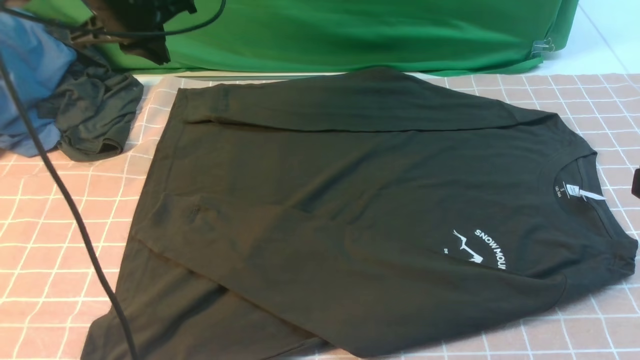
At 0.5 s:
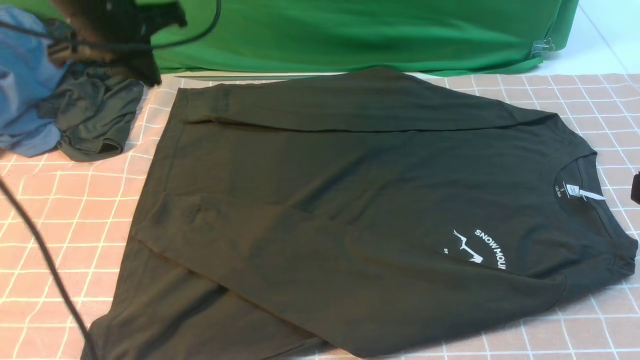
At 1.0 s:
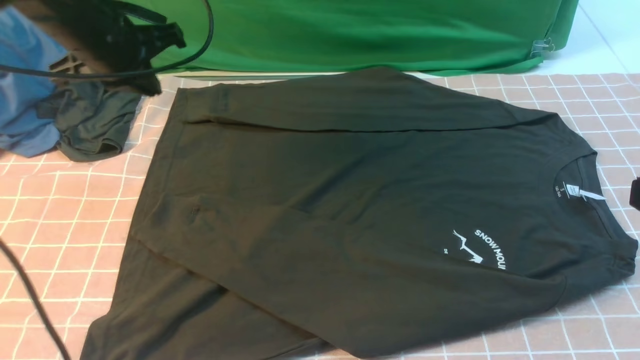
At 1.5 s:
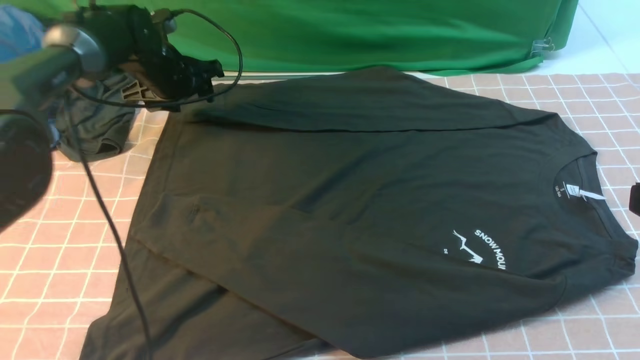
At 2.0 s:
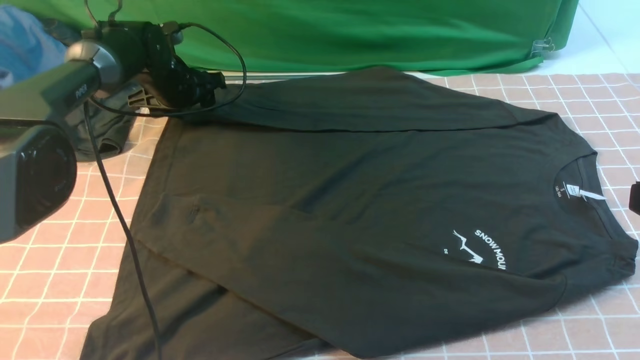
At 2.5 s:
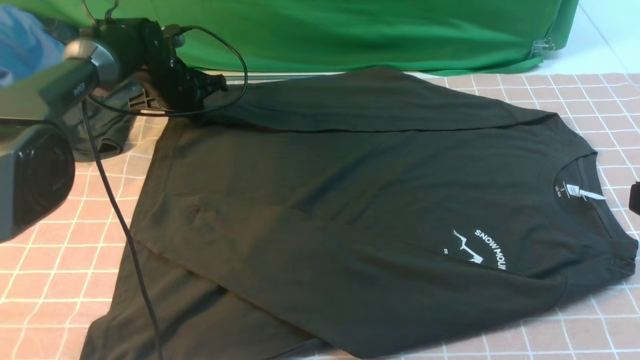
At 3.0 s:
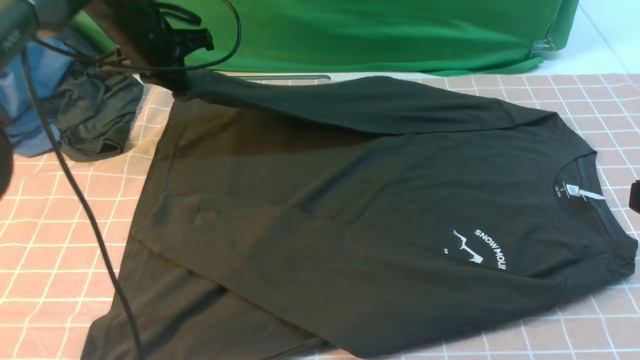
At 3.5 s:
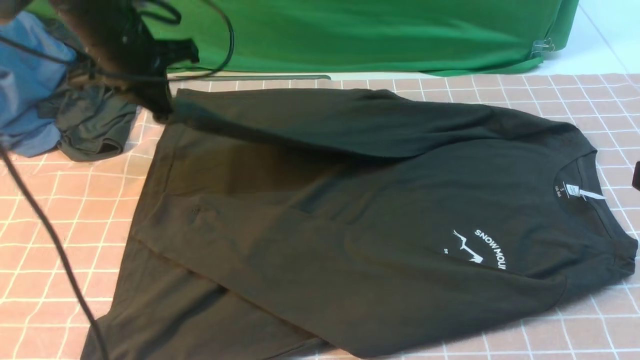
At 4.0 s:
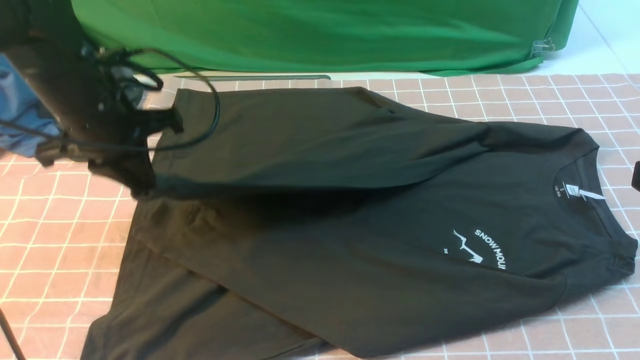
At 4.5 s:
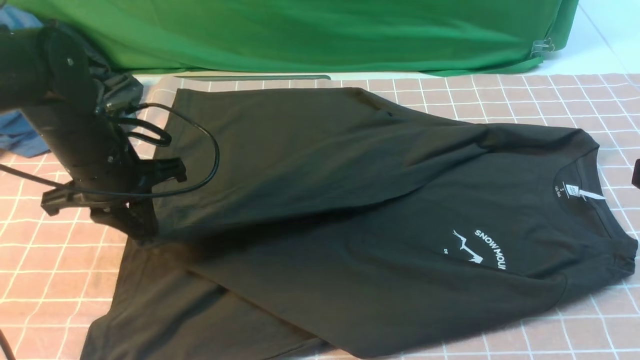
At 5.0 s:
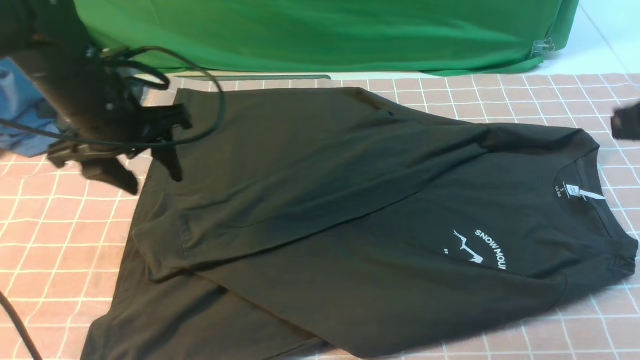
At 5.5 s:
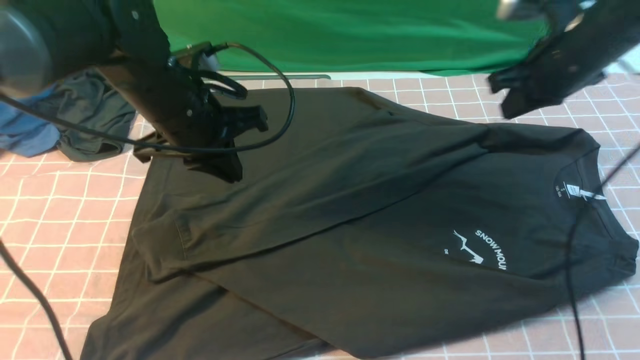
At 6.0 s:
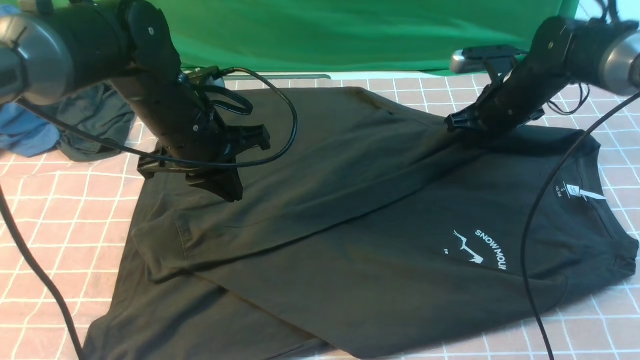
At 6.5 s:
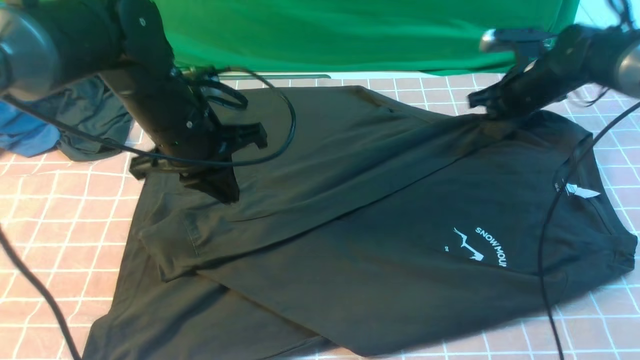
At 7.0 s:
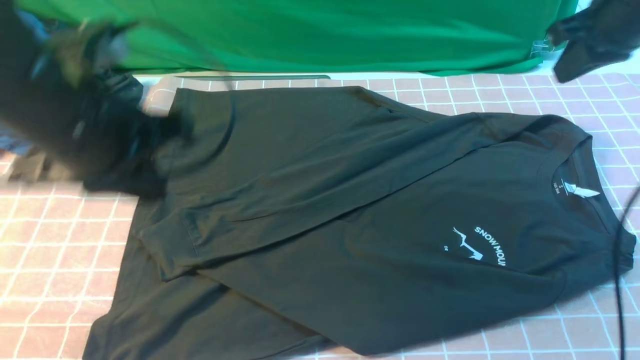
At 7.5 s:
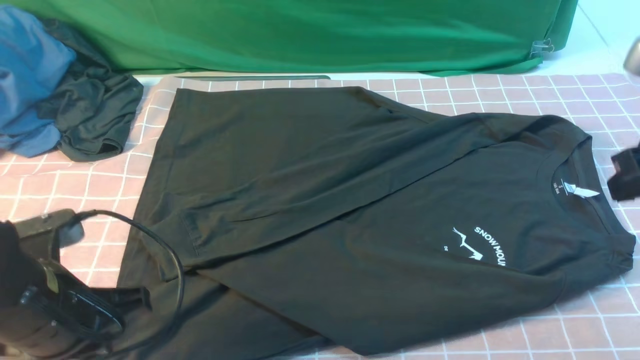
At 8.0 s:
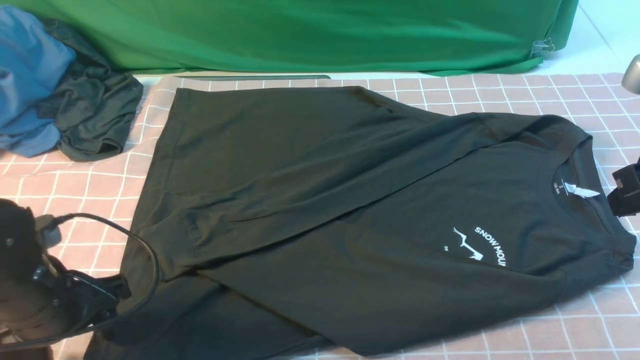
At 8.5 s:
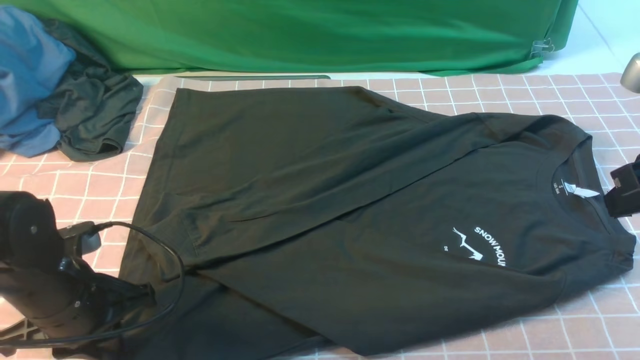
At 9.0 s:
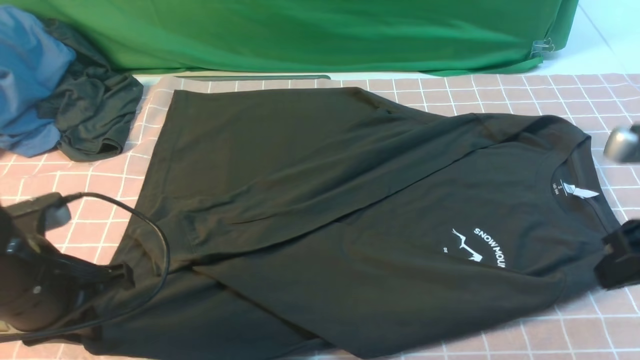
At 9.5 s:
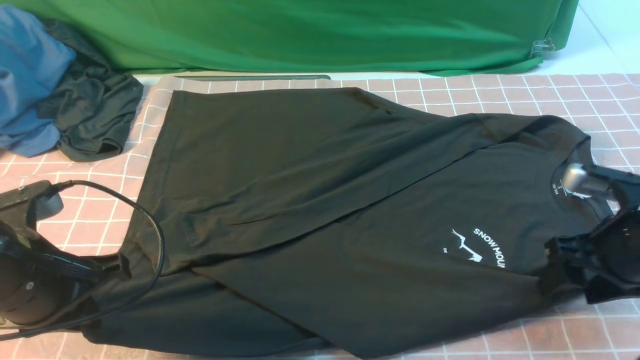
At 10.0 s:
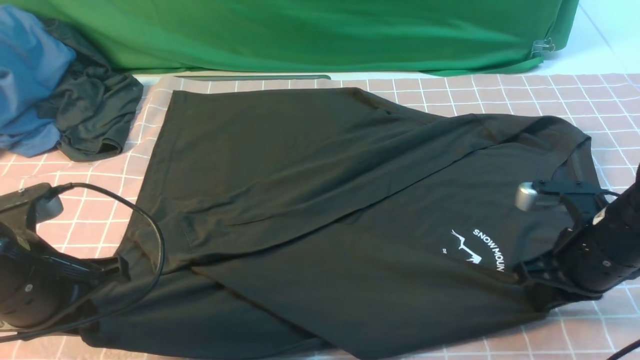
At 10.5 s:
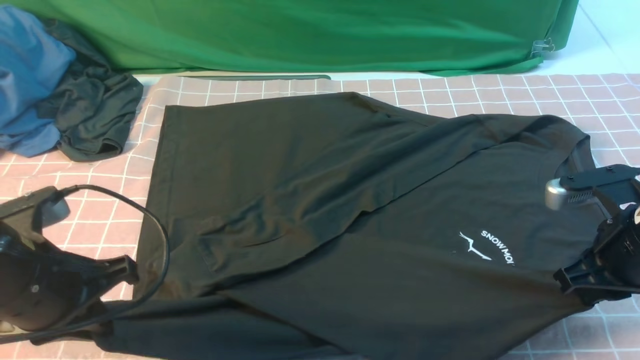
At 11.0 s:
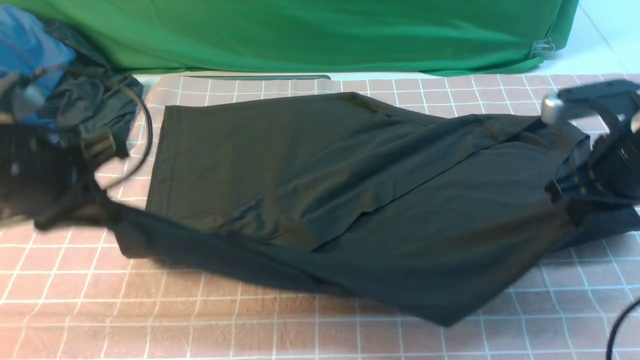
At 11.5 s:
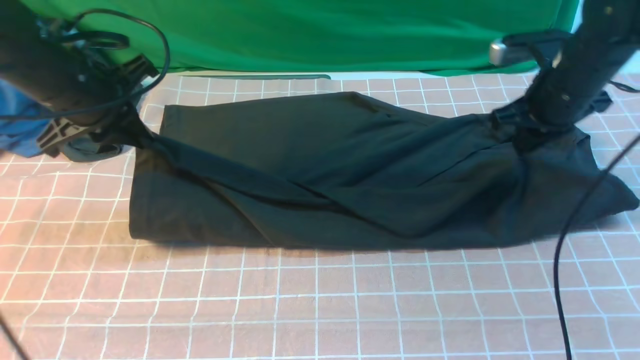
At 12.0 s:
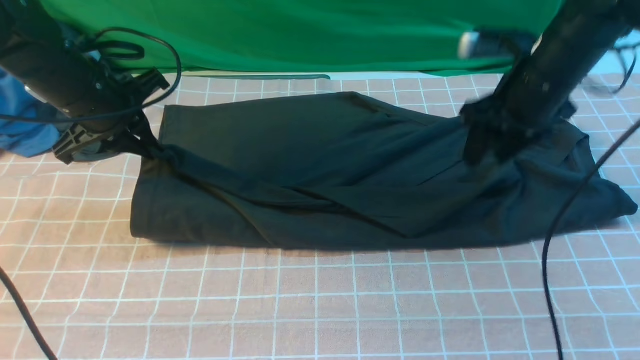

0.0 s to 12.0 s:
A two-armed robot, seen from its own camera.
Step, 0.0 to 2.5 s: use the left arm to clamp the cuff farthest from it.
Step, 3.0 to 4.5 s: use the left arm to drag and drop the cuff onto the cuff closest to the left arm.
Step, 5.0 to 9.5 s: use both arms simultaneously to clamp the lower edge of the clothing fabric.
0.0 to 2.0 s: The left gripper heads downward and forward, covering some 15 cm, and opens its fingers.
2.0 to 4.0 s: The left gripper moves backward and upward, some 20 cm, and closes its fingers.
4.0 to 6.0 s: The right gripper shifts about 40 cm forward and downward. The left gripper moves to the right, approximately 10 cm, and opens, then closes once more.
6.0 to 8.0 s: The left gripper travels backward and to the left by about 20 cm, and opens; the right gripper goes some 30 cm backward and upward.
8.0 to 10.0 s: The left gripper heads upward, covering about 5 cm, and closes up; the right gripper is displaced downward by approximately 15 cm, and opens, then closes again.
10.0 to 12.0 s: The right gripper shifts approximately 15 cm forward and upward, and opens up. Meanwhile the left gripper shifts some 20 cm forward.

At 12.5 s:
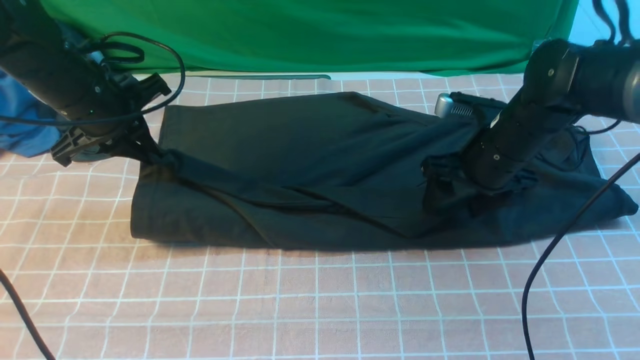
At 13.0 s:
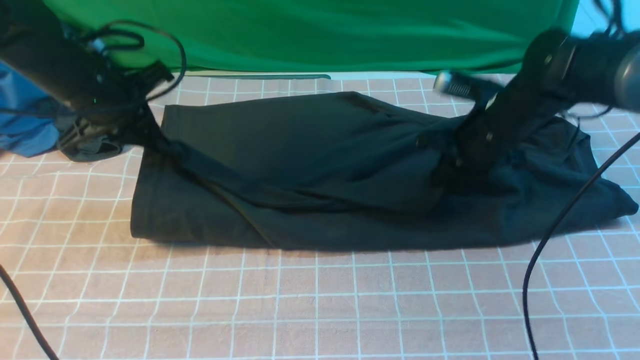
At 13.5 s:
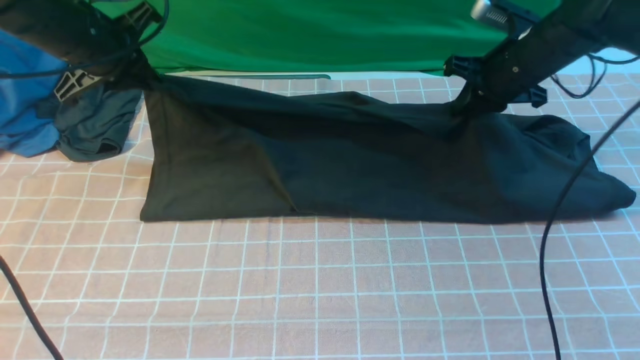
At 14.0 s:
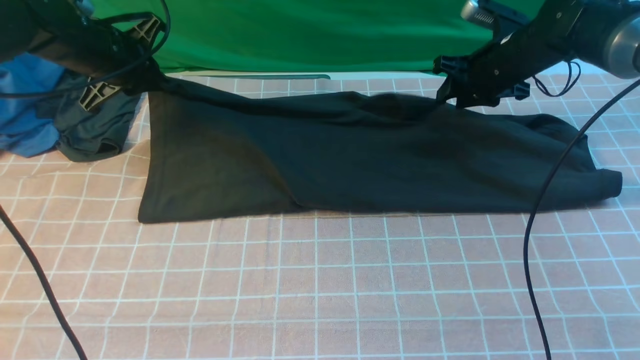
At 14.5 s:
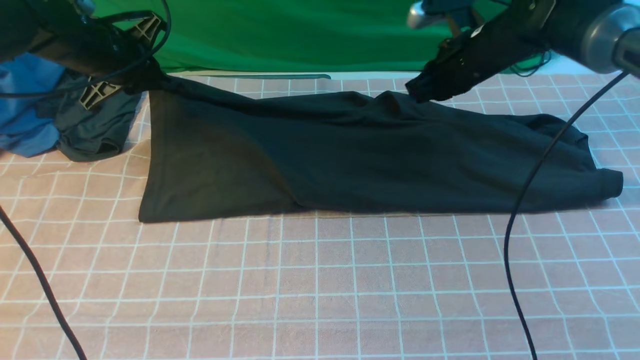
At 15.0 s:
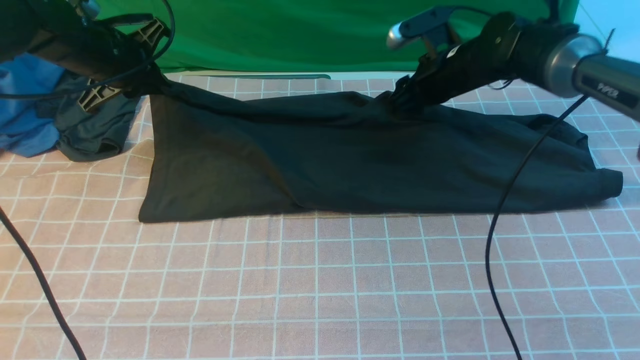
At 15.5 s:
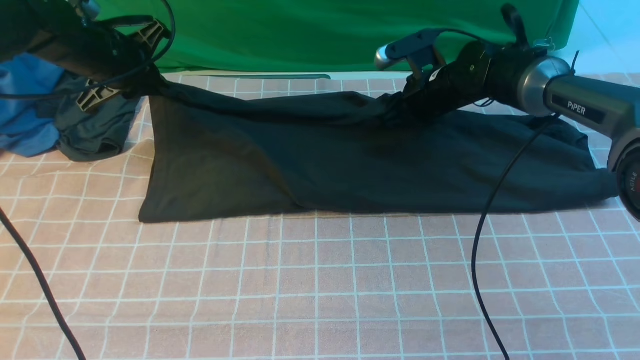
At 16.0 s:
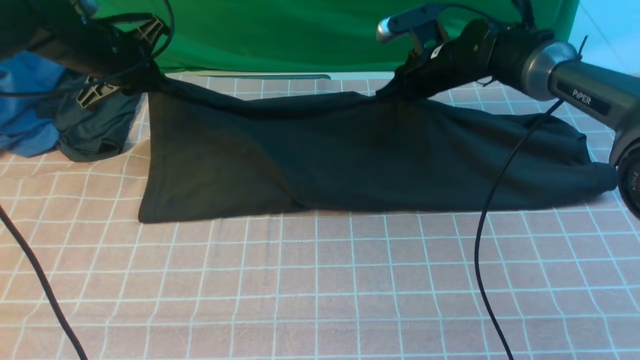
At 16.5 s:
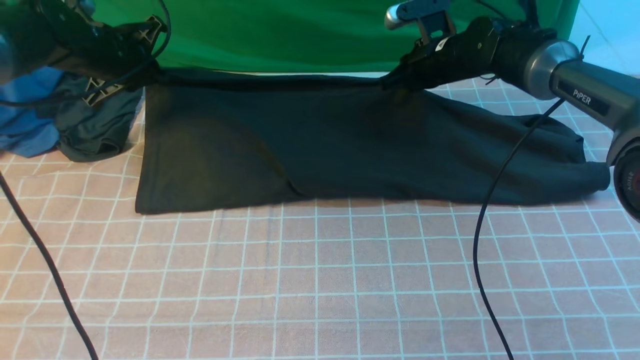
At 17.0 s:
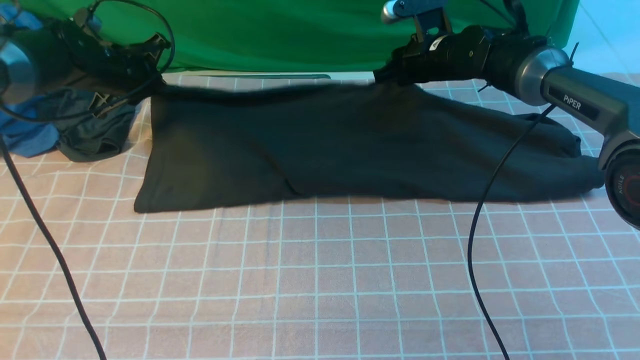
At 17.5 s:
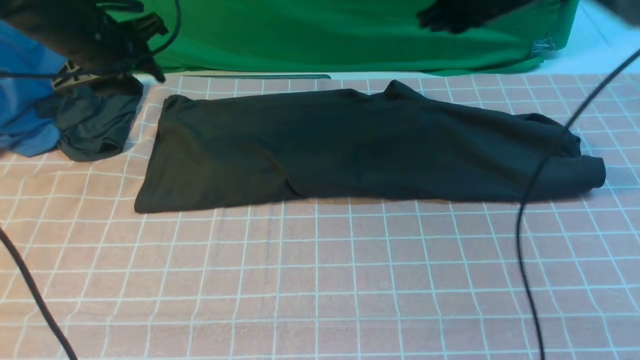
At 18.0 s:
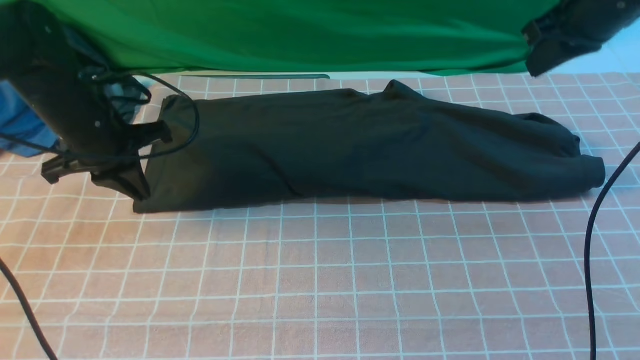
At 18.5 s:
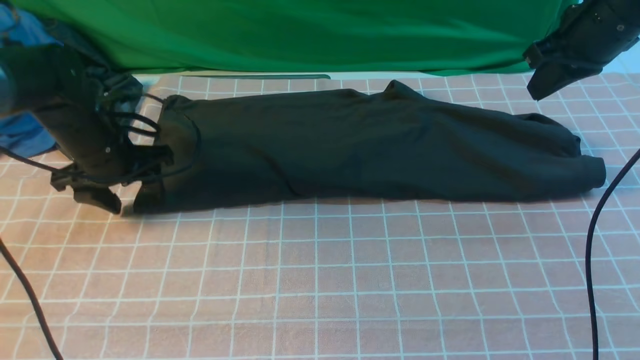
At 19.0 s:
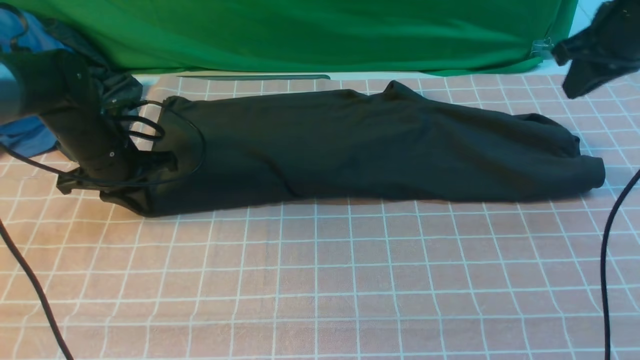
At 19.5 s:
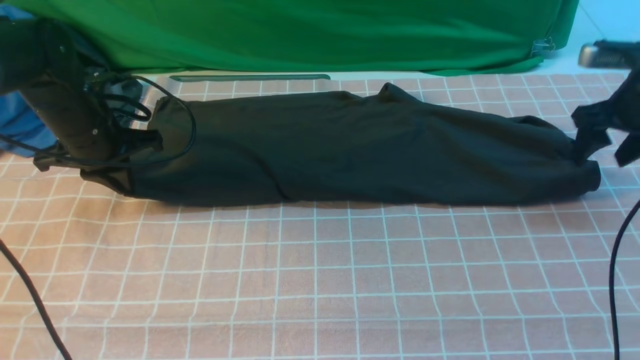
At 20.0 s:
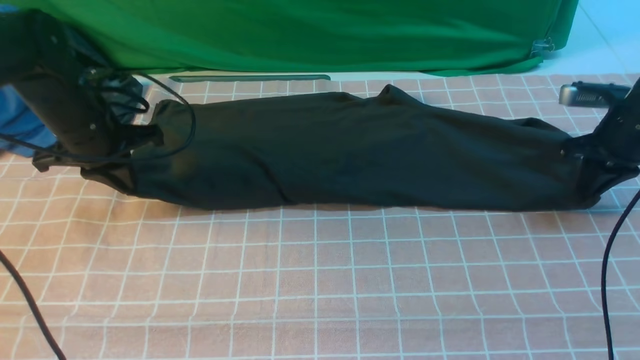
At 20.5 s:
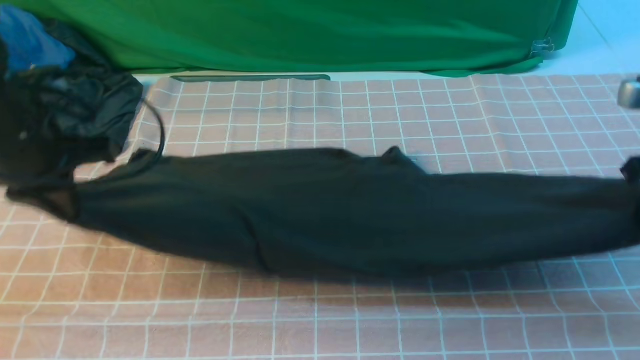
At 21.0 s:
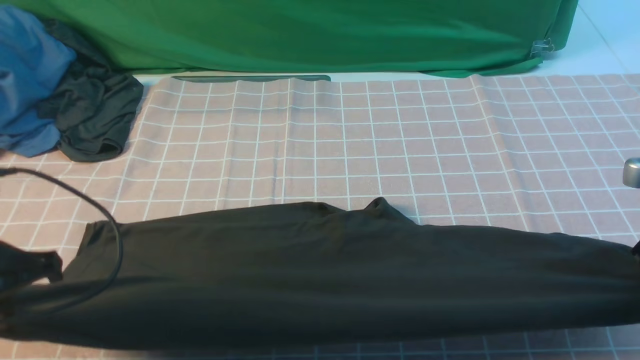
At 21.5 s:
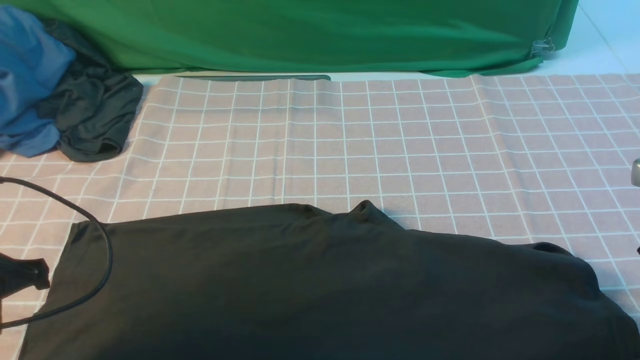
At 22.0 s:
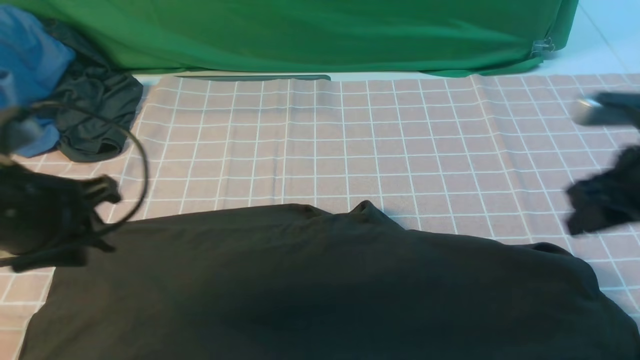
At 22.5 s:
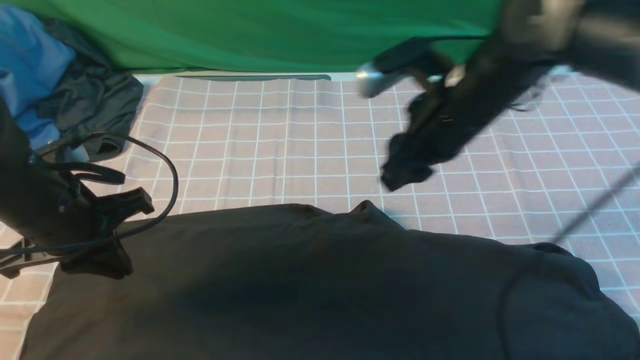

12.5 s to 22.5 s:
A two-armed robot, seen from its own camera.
Step, 12.5 to 17.0 s: use both arms to drag the lower edge of the fabric forward and fold it over the upper edge.
12.5 to 14.5 s: The left gripper is displaced forward by about 5 cm; the right gripper is displaced forward by about 10 cm, and closes up.
14.5 to 16.5 s: The right gripper moves some 5 cm, and opens and closes again.
16.5 to 18.5 s: The left gripper is displaced backward and downward by roughly 10 cm, and opens. Meanwhile the right gripper is displaced upward, to the right and backward by approximately 20 cm.
18.5 to 20.5 s: The left gripper travels backward and upward by about 15 cm, and closes. The right gripper moves backward, to the right and downward, roughly 15 cm, and opens and closes again.
20.5 to 22.5 s: The right gripper is displaced to the left by roughly 25 cm, and opens, while the left gripper reaches about 10 cm backward, then returns, and opens, then closes once more.
